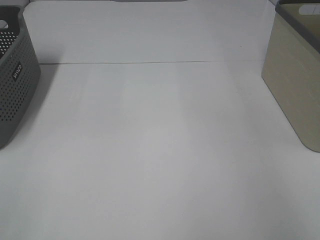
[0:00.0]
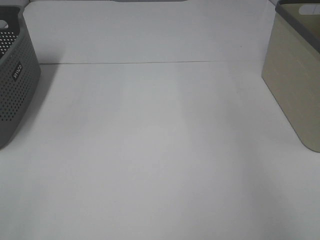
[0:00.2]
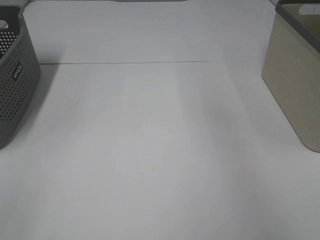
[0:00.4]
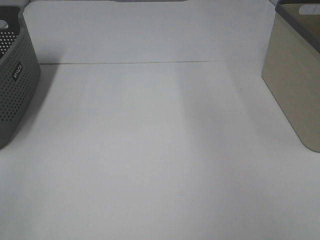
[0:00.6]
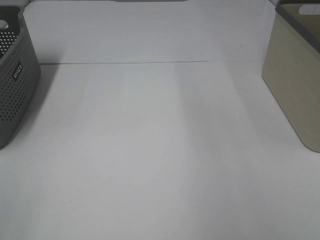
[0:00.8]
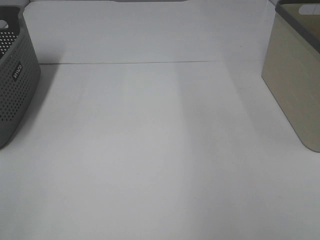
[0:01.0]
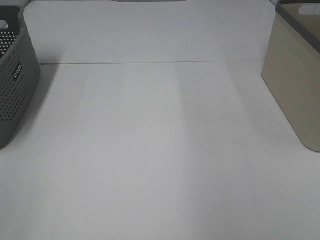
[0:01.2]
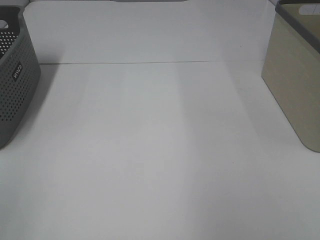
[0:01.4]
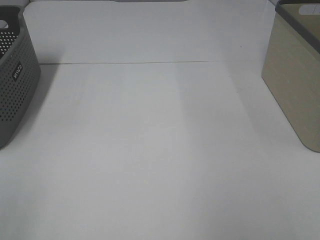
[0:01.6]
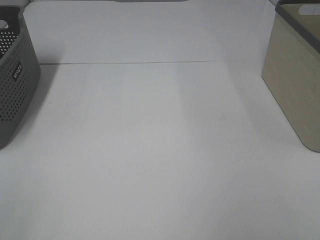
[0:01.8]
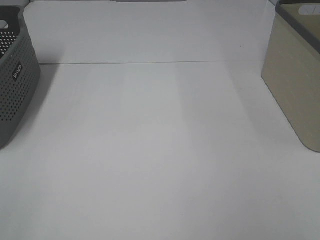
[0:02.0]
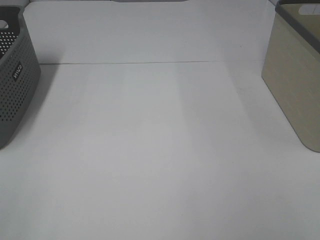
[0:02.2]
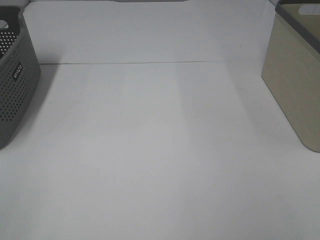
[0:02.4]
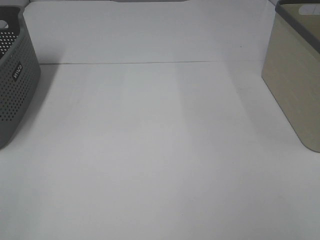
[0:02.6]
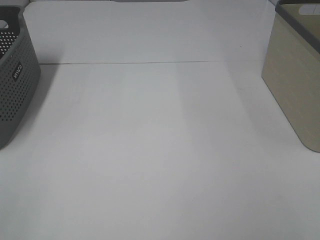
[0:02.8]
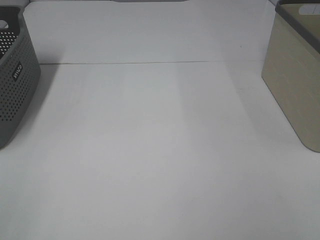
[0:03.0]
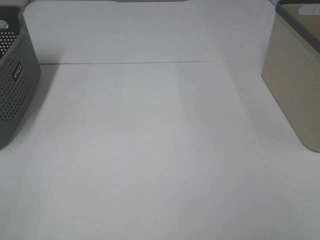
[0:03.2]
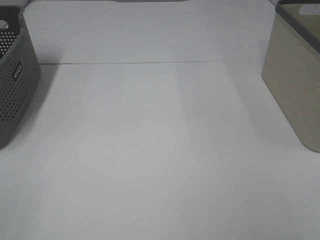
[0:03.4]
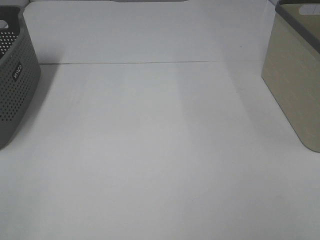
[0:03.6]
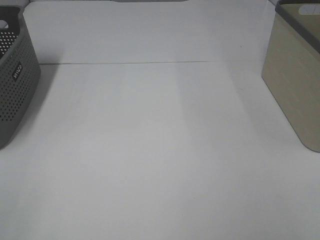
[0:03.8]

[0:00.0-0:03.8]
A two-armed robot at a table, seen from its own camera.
2.6 to 3.8 s: Neither gripper changes place.

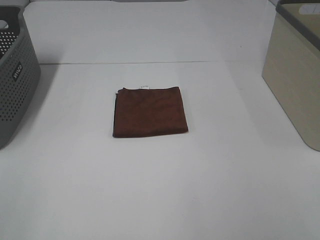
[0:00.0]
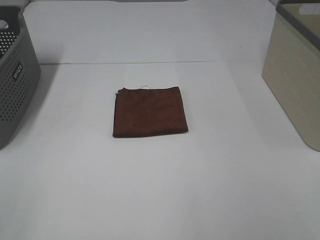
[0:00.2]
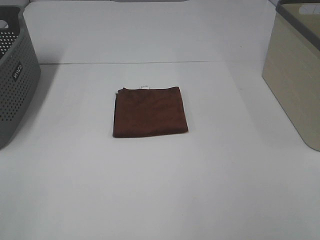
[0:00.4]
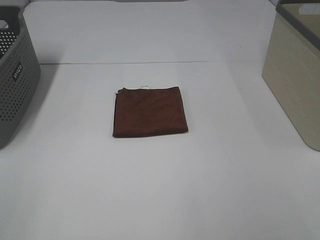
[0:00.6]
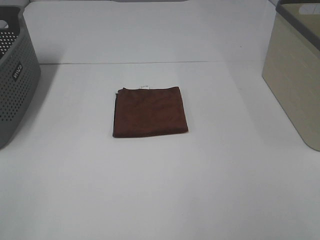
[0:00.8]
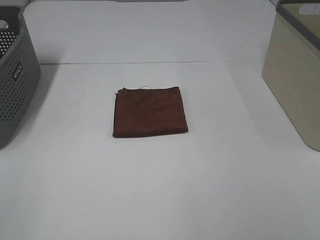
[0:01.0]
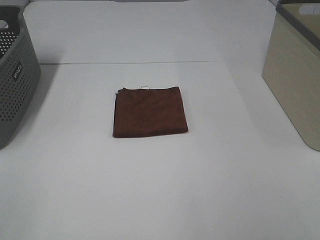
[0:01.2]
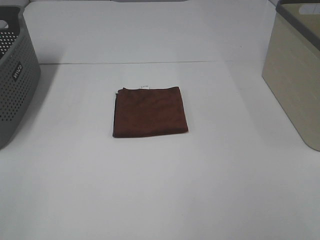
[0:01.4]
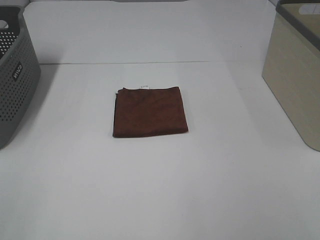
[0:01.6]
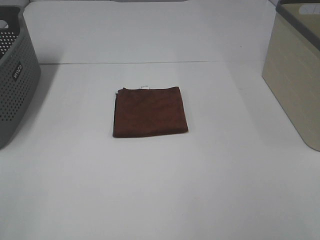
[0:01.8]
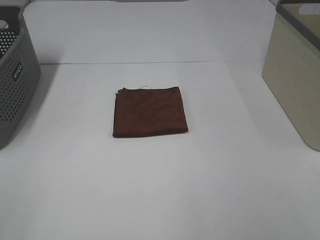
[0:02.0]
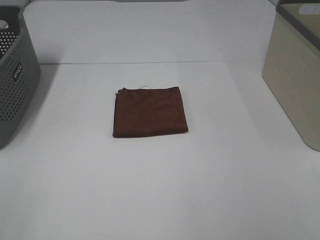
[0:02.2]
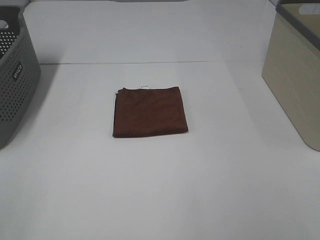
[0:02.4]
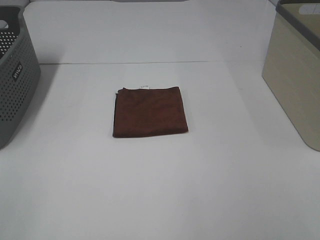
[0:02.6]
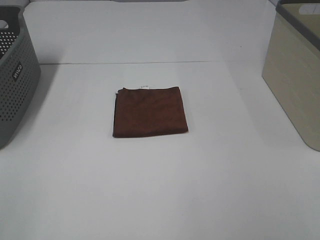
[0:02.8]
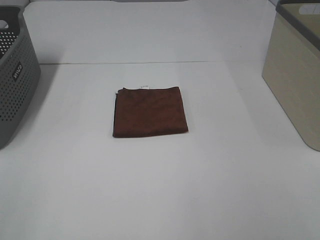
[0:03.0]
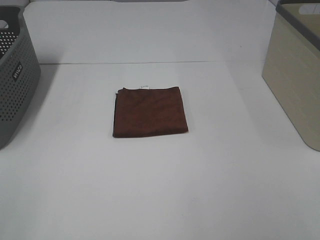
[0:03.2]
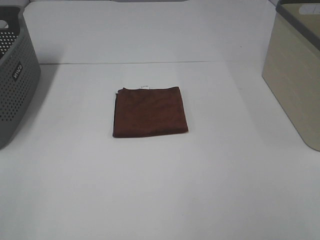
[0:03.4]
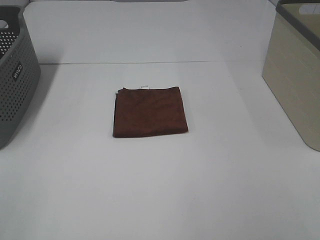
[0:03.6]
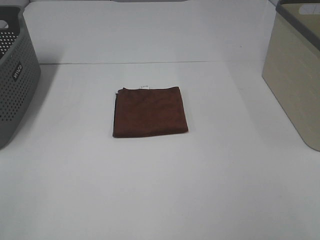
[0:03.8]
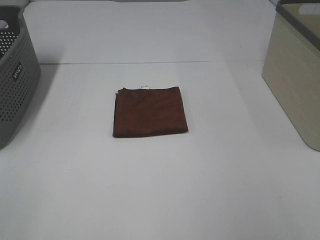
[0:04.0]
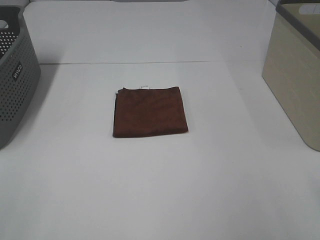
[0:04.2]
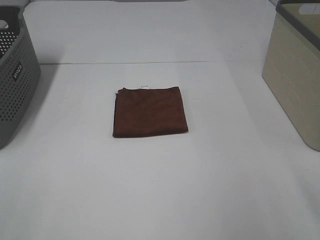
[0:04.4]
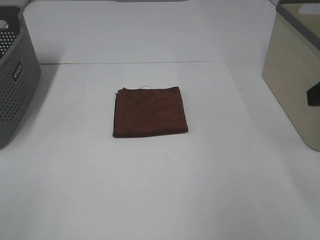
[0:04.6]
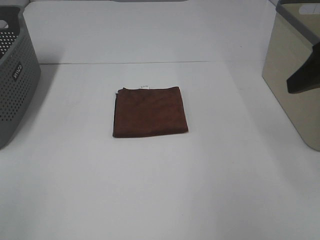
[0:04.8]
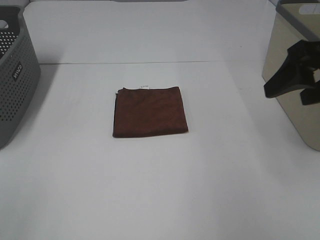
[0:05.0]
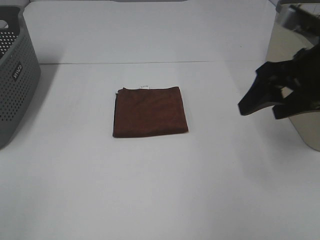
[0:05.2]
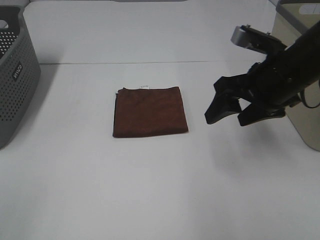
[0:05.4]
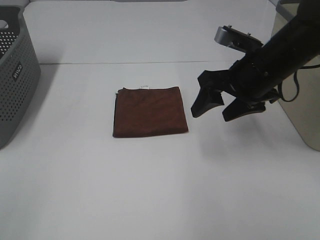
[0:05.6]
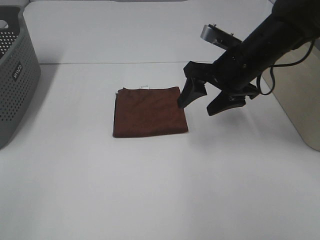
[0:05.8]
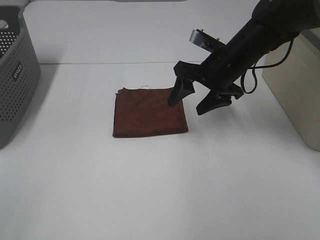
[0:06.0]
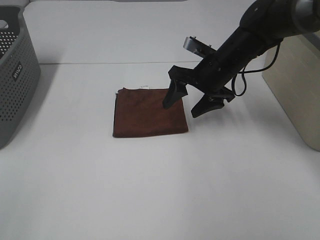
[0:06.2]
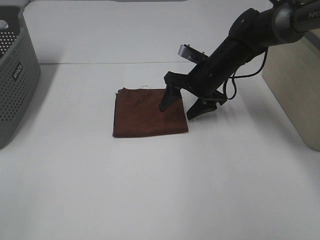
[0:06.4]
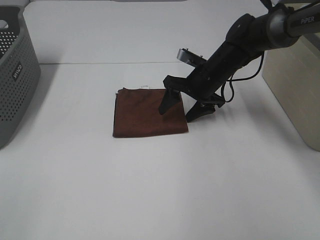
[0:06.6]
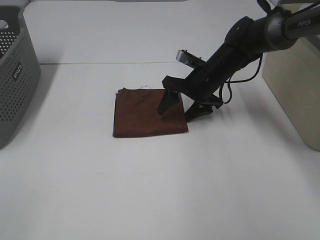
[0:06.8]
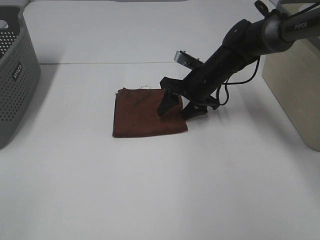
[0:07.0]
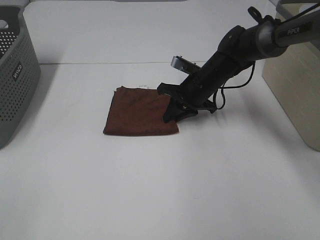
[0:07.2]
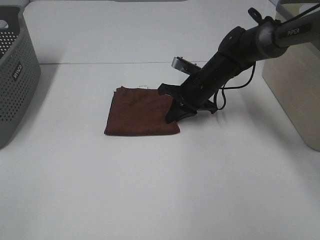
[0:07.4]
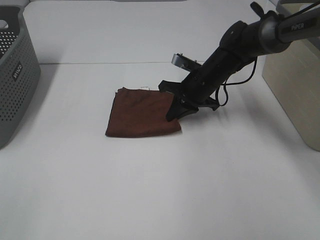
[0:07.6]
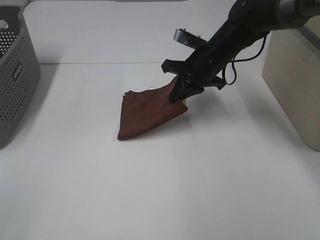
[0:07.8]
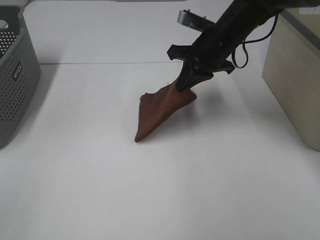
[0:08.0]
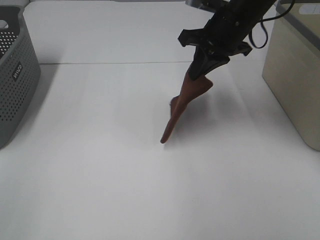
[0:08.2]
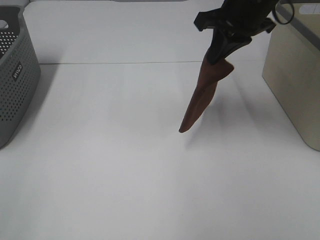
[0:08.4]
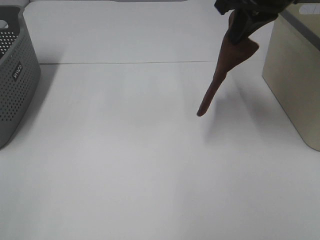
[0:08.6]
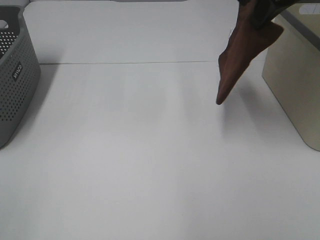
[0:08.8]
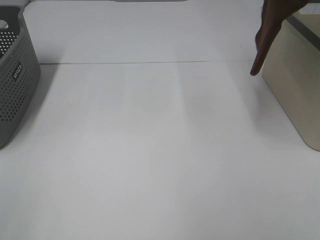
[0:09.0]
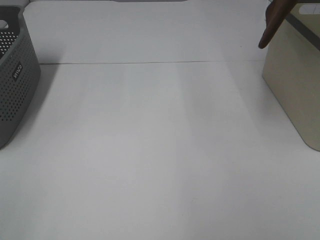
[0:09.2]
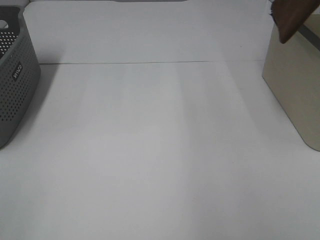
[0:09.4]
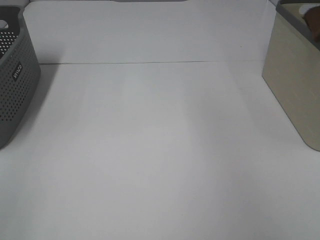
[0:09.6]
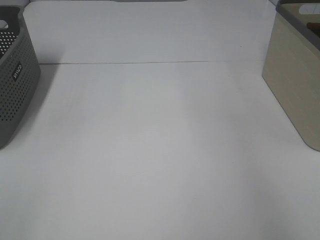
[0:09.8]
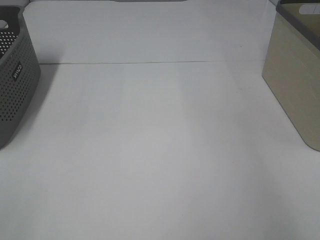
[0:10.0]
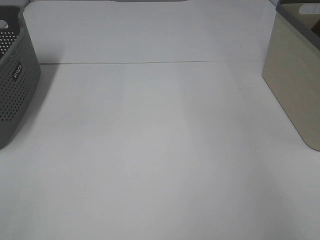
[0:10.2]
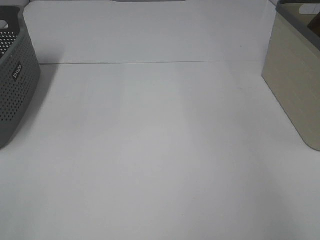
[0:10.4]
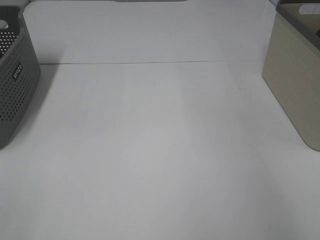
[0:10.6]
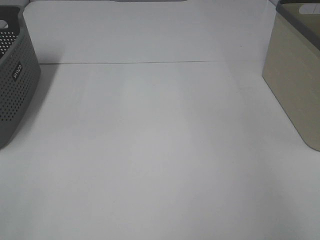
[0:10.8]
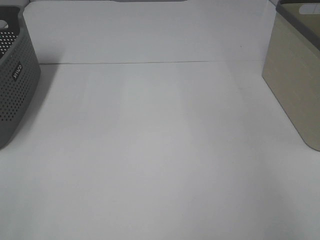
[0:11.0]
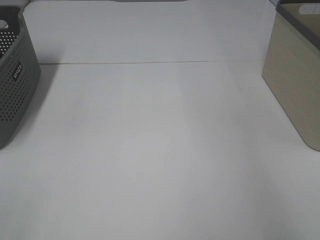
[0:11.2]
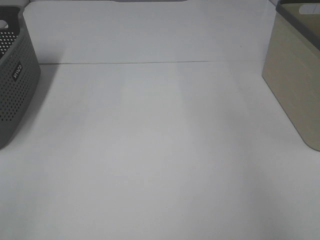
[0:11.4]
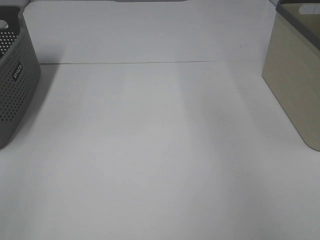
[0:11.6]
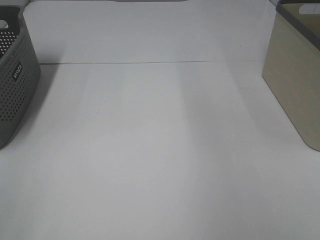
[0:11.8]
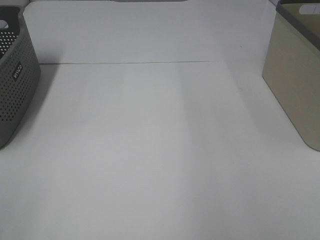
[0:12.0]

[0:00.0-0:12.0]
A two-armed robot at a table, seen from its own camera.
Step, 0.0 to 7.4 s: Right hand: grab the folded brown towel.
Step, 7.6 to 11.0 s: Right hand: place the brown towel in right basket.
0.0 to 3.0 s: Neither gripper changes place.
4.4 to 6.0 s: The right gripper heads forward, to the left and downward, covering approximately 30 cm.
6.0 to 7.6 s: The right gripper heads downward, covering approximately 5 cm, and closes up.
7.6 to 9.0 s: The right gripper travels upward by roughly 30 cm.
9.0 to 10.4 s: The right gripper heads to the right, covering roughly 20 cm.

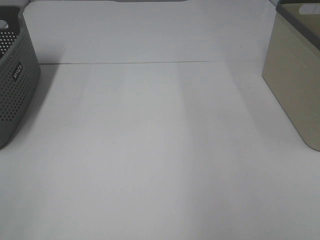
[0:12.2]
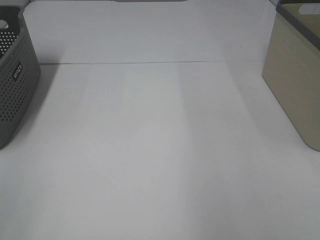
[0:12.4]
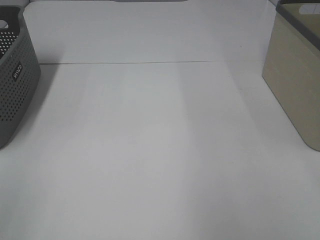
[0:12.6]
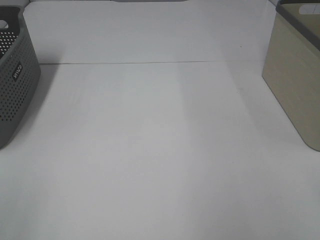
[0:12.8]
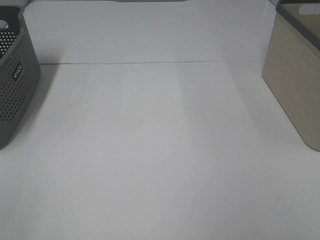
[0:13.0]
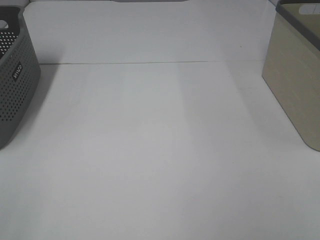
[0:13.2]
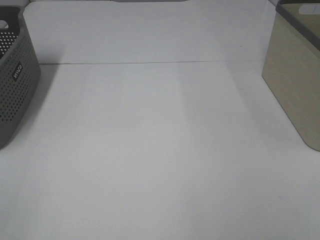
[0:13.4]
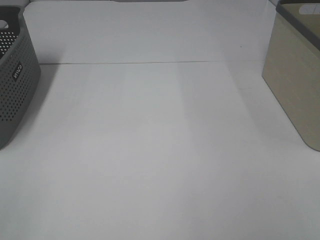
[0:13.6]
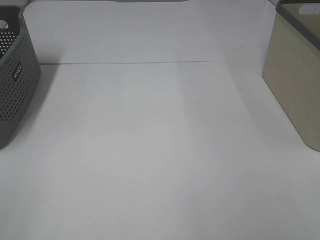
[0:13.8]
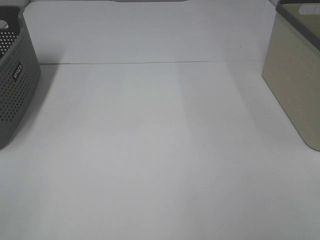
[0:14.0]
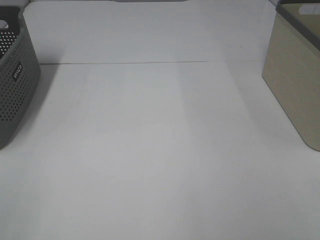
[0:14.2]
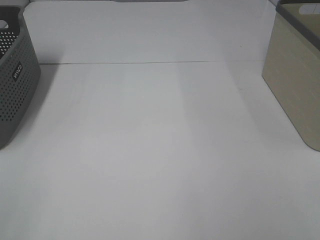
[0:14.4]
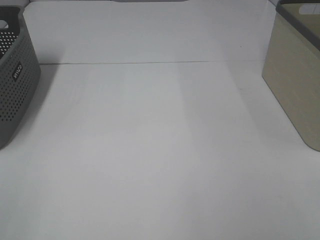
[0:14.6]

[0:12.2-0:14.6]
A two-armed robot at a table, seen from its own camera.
13.4 to 14.6 s: Both grippers stay about where they are.

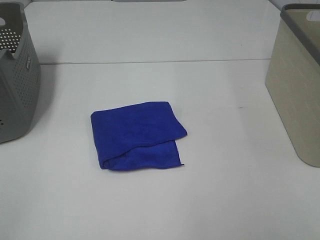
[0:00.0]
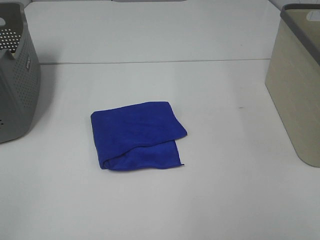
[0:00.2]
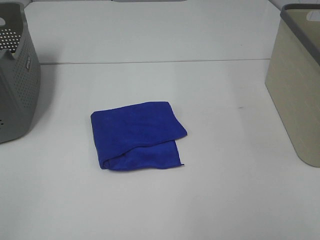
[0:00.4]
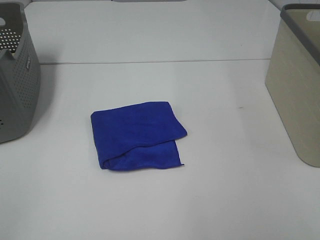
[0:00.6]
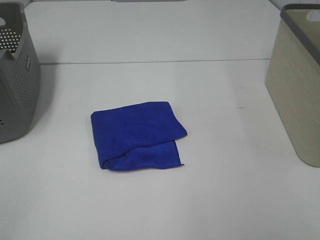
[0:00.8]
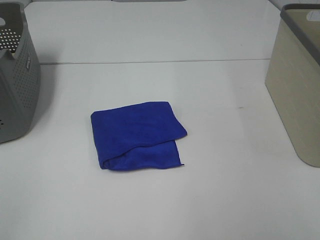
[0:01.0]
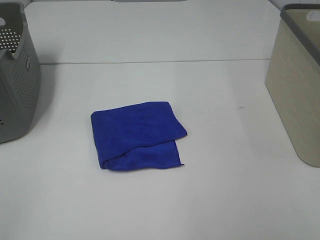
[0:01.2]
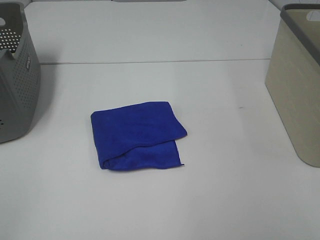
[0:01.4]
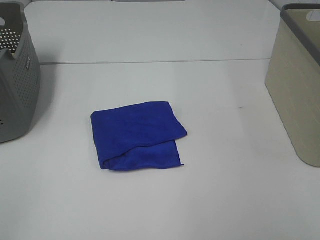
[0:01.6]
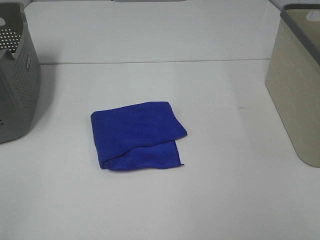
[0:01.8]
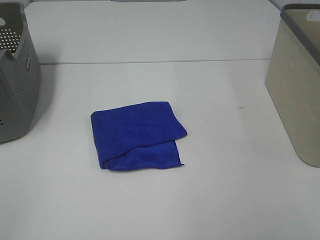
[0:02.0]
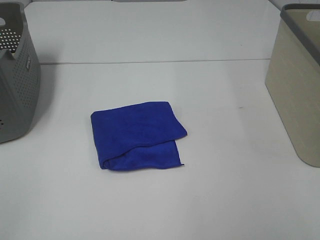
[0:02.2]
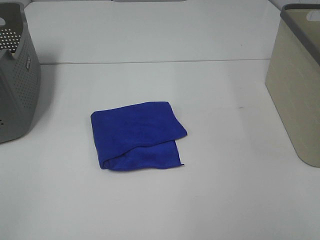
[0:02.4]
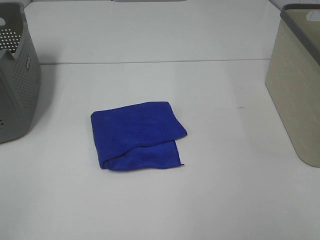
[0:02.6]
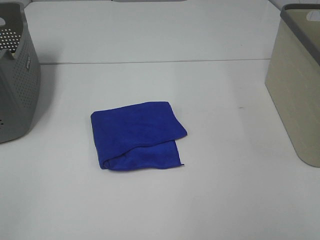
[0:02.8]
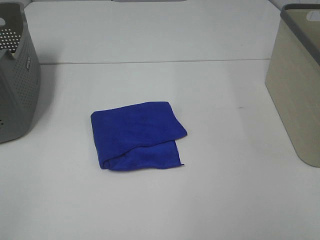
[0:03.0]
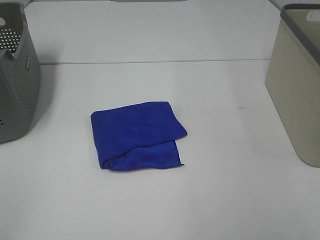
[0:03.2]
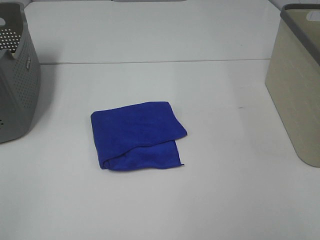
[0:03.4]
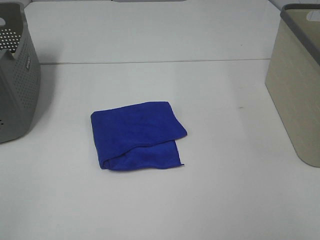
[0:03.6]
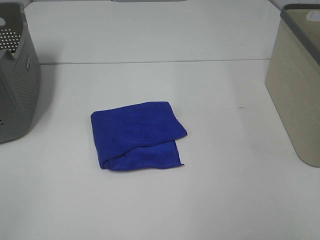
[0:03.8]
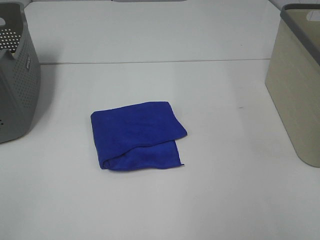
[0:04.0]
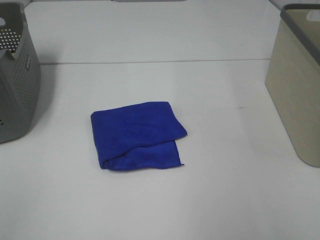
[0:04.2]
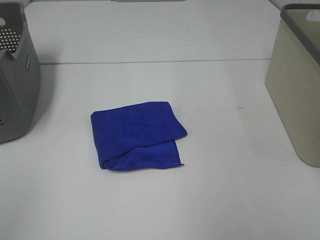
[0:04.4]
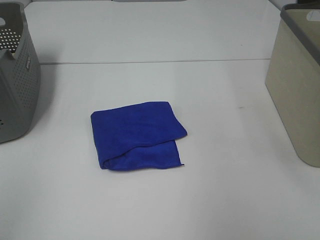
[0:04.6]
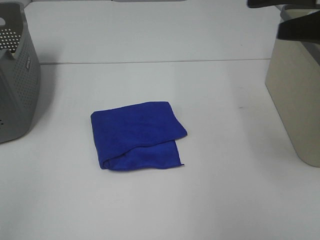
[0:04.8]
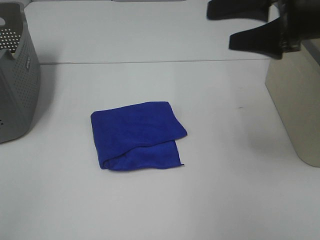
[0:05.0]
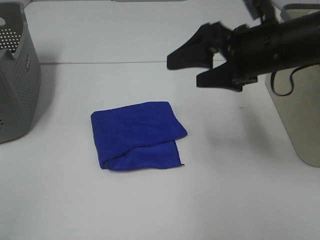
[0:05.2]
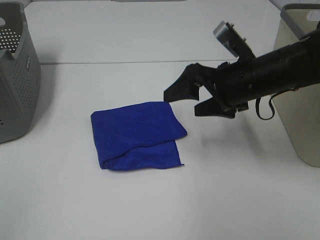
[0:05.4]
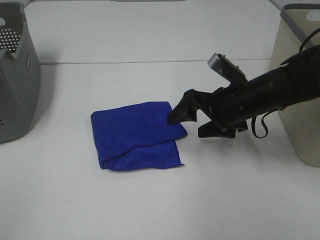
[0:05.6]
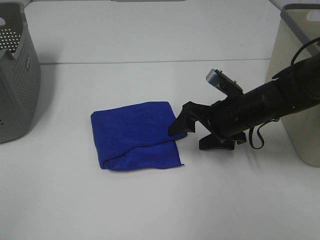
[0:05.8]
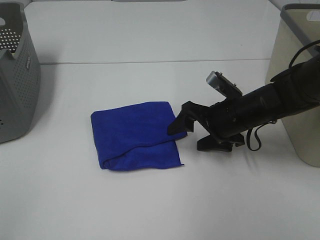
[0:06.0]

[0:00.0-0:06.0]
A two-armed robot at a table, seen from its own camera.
0.0 to 3.0 s: Both grippers stay about where they are.
4.4 to 6.0 s: The right gripper moves downward, forward and to the left, some 35 cm.
